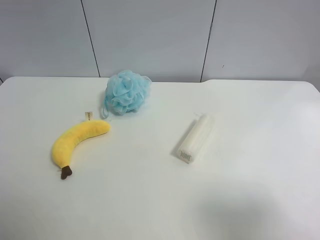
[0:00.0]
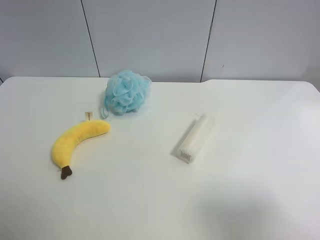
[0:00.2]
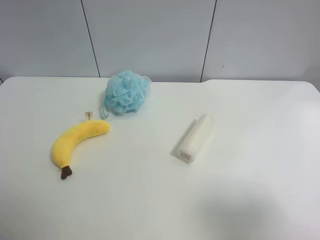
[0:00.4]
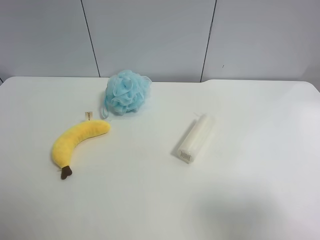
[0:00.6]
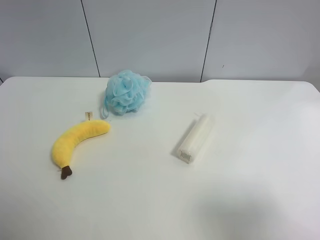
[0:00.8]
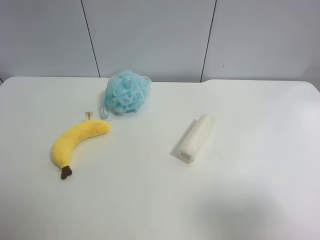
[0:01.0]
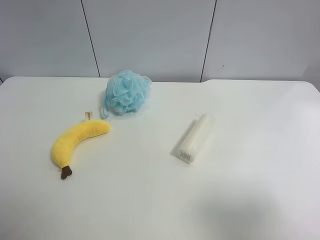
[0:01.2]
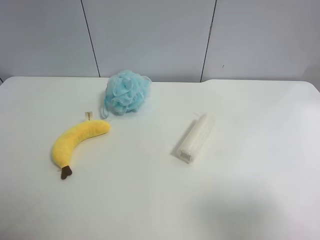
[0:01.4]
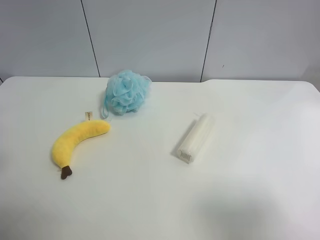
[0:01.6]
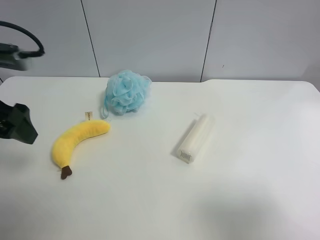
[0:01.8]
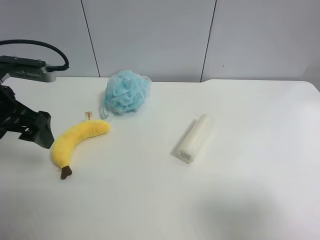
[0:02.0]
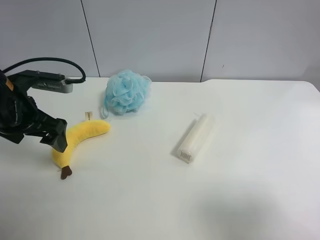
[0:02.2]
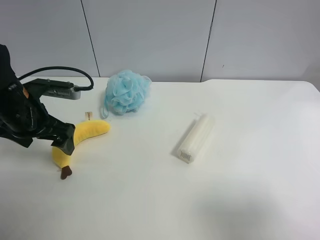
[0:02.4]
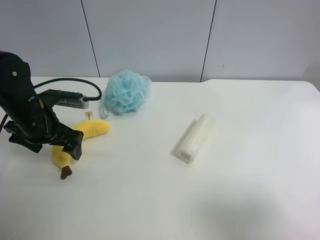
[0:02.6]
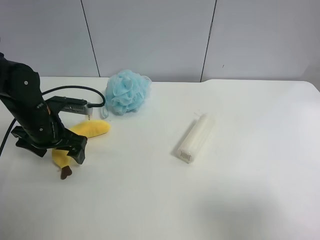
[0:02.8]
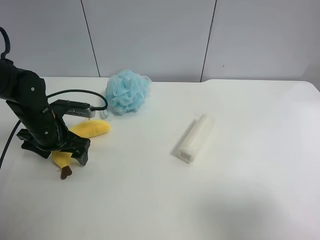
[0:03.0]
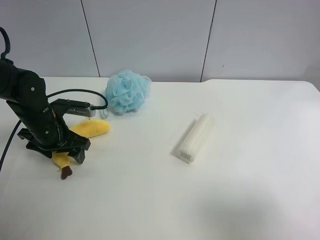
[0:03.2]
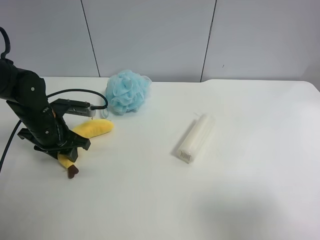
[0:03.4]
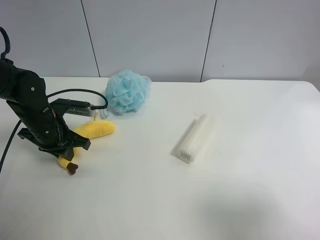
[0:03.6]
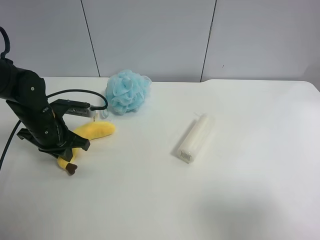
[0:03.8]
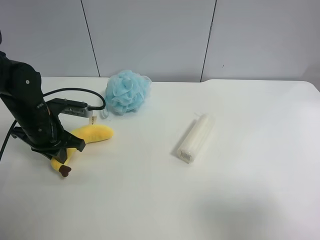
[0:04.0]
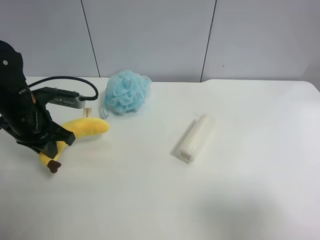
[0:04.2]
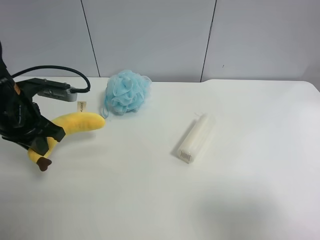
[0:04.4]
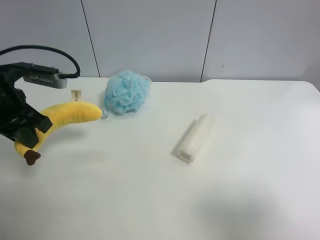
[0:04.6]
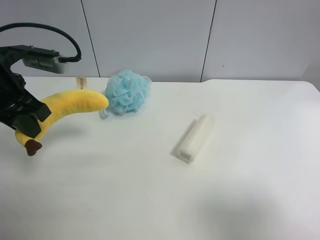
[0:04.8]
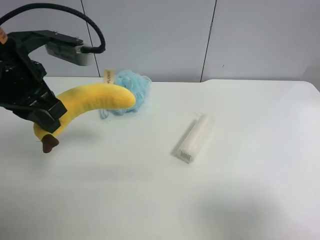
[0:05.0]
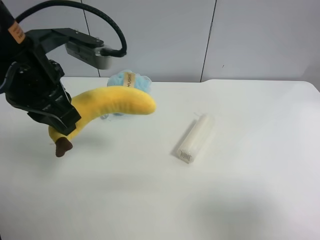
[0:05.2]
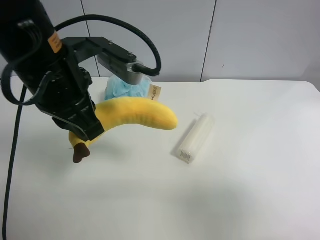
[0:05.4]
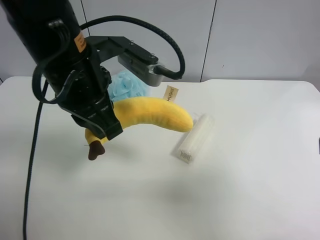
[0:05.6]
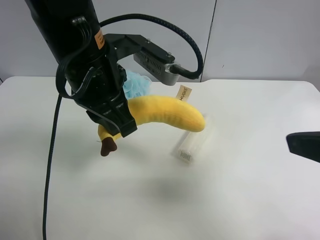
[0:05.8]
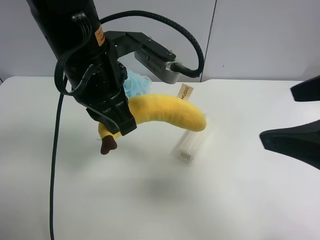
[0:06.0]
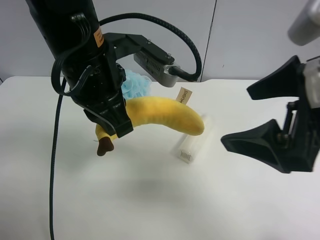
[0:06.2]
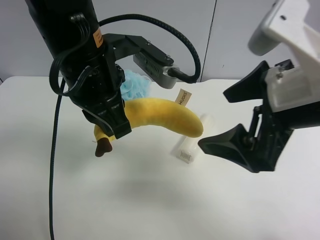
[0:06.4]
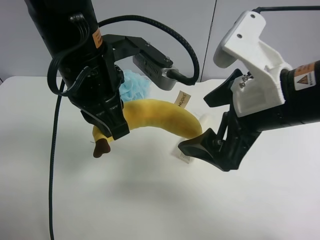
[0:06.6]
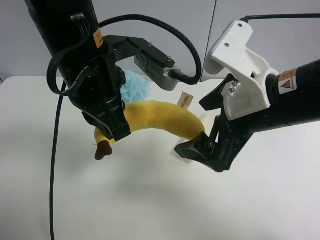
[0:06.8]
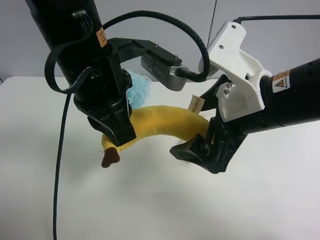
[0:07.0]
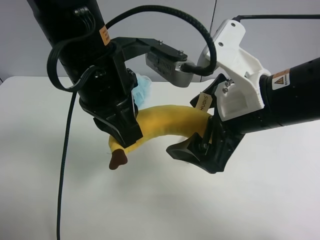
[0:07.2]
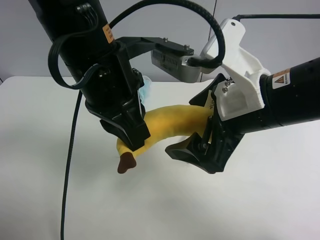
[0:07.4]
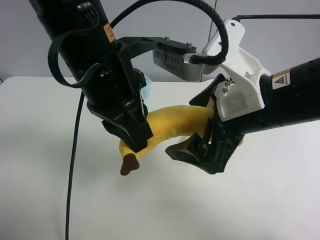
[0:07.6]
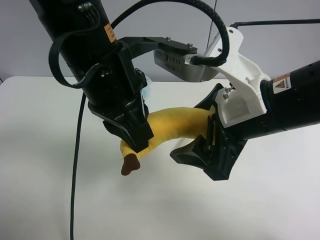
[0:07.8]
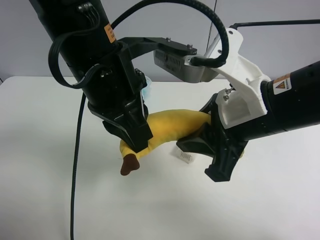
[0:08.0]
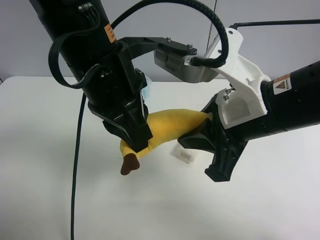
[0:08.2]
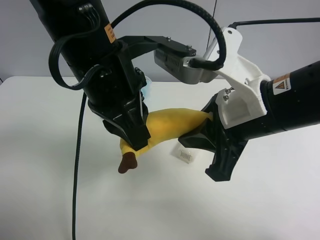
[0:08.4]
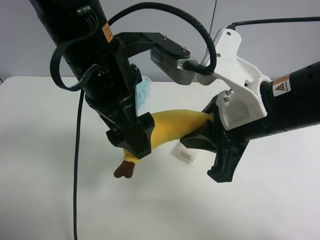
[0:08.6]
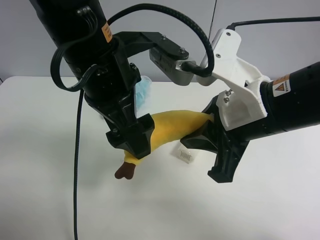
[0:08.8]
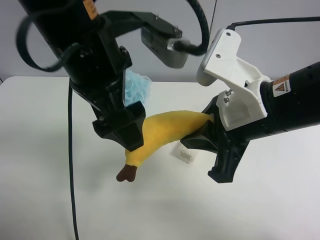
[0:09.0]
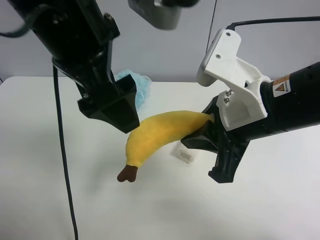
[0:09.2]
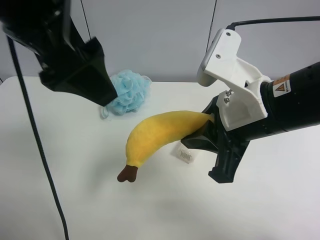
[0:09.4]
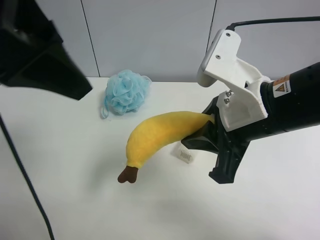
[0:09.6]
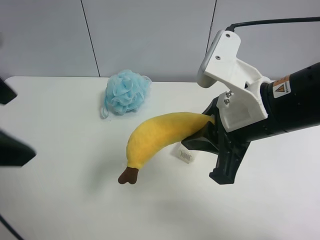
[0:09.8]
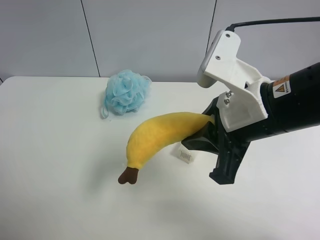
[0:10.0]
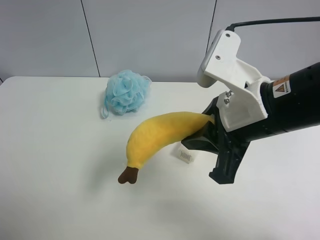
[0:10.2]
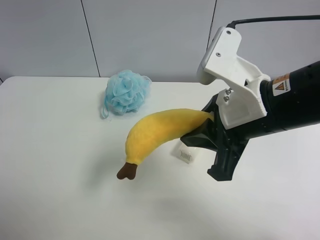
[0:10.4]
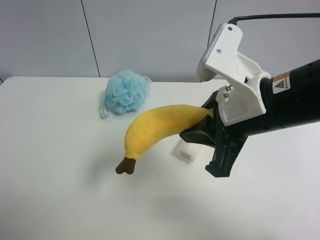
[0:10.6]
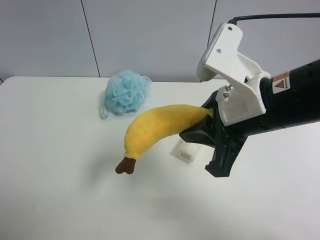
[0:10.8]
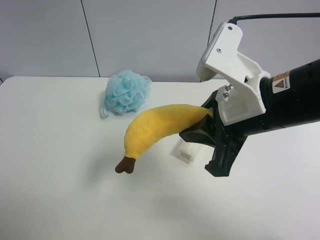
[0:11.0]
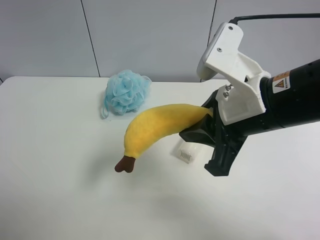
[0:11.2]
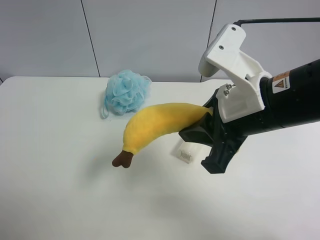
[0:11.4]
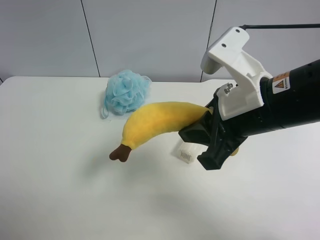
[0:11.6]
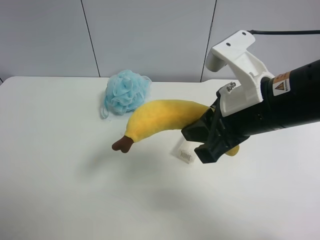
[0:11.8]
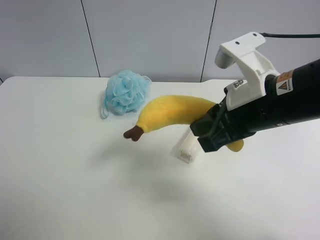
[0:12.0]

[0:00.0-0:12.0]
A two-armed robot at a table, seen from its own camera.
Task of the whole recording: use the left gripper to pick up the item and transfer it from the left gripper to the right gripper.
0:01.6 to 0:03.0: The left gripper moves downward and forward, about 25 cm.
0:03.0 to 0:04.4: The left gripper heads upward, covering some 10 cm, and closes.
0:04.4 to 0:06.0: The left gripper travels to the right and upward by approximately 20 cm; the right gripper shifts approximately 15 cm forward and to the left.
0:06.0 to 0:07.6: The right gripper moves to the left, forward and downward, approximately 10 cm.
0:07.6 to 0:09.0: The right gripper closes its fingers, while the left gripper opens up.
0:09.0 to 0:10.4: The left gripper shifts approximately 30 cm to the left and backward.

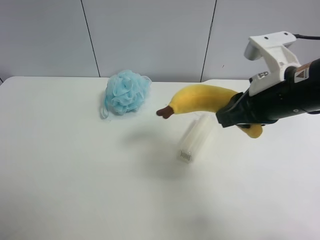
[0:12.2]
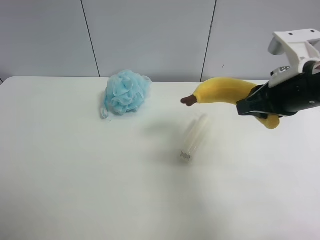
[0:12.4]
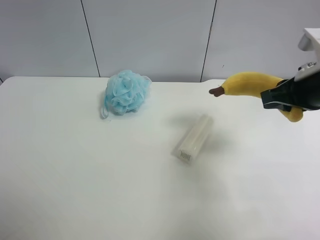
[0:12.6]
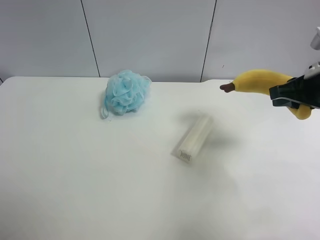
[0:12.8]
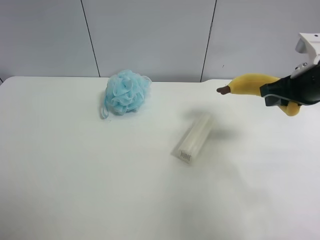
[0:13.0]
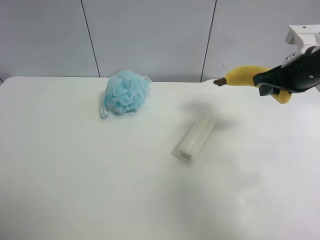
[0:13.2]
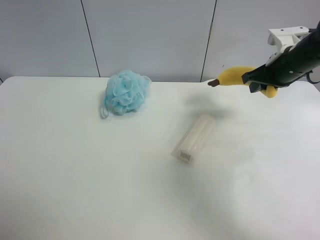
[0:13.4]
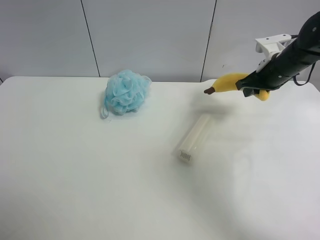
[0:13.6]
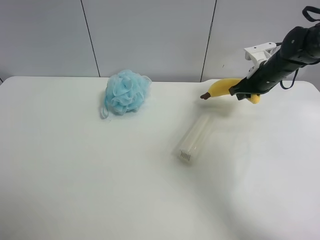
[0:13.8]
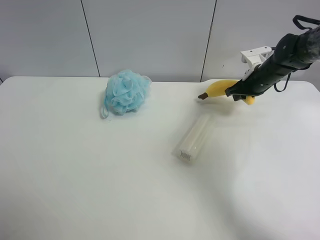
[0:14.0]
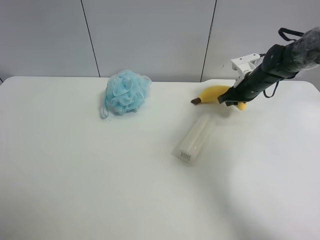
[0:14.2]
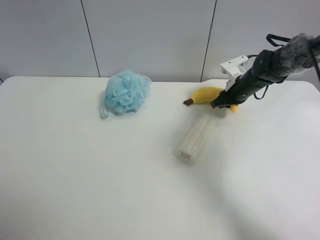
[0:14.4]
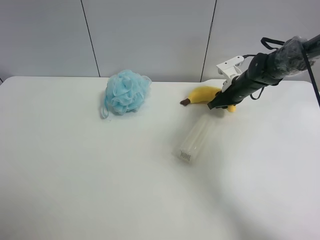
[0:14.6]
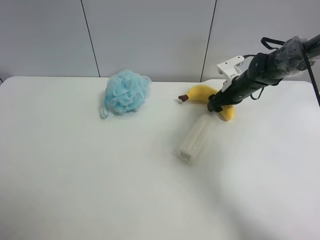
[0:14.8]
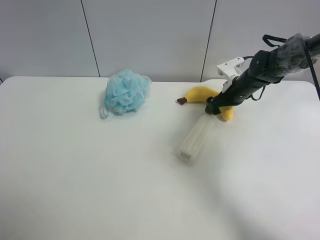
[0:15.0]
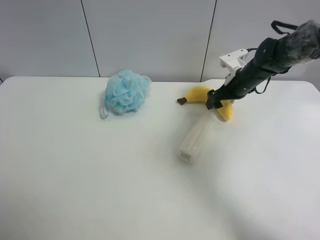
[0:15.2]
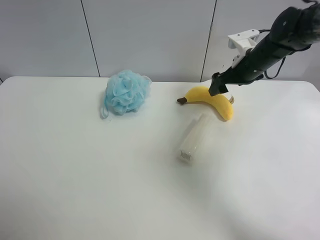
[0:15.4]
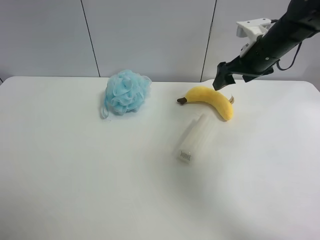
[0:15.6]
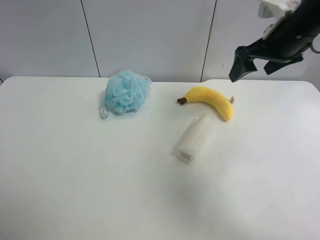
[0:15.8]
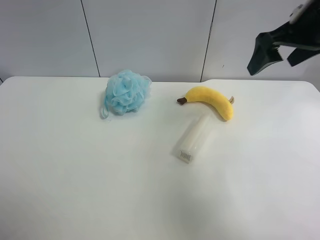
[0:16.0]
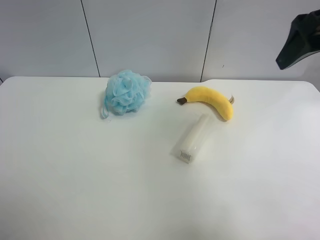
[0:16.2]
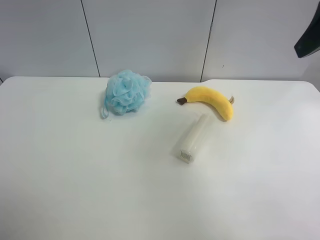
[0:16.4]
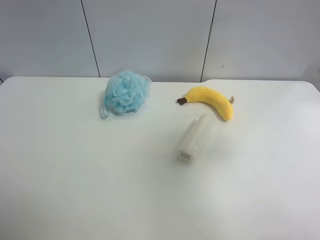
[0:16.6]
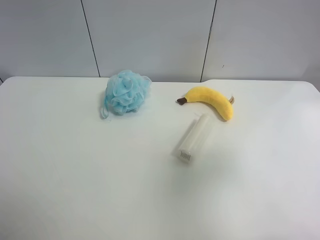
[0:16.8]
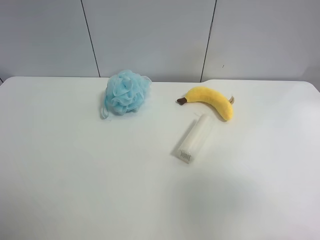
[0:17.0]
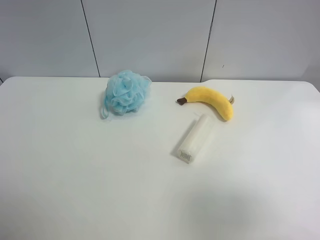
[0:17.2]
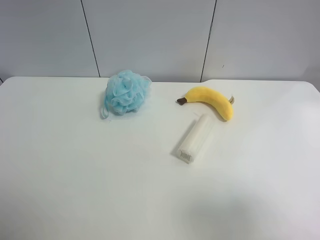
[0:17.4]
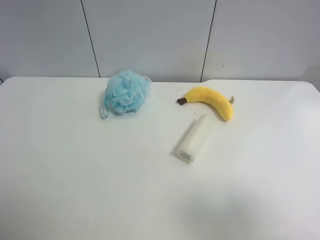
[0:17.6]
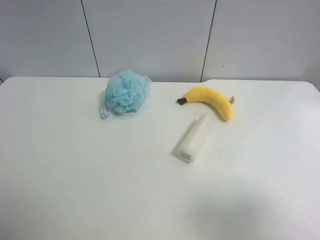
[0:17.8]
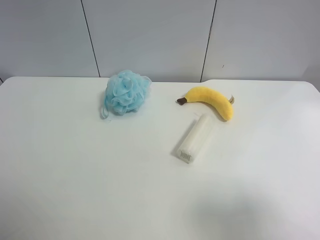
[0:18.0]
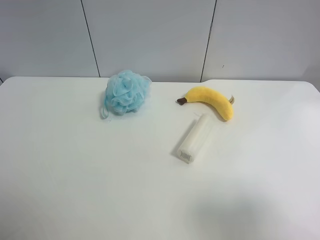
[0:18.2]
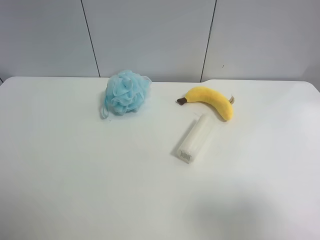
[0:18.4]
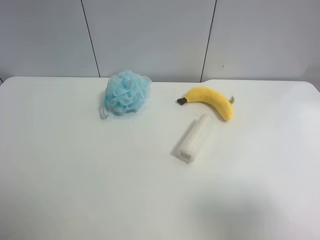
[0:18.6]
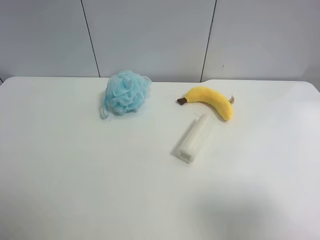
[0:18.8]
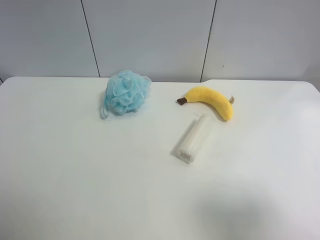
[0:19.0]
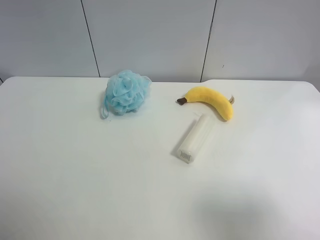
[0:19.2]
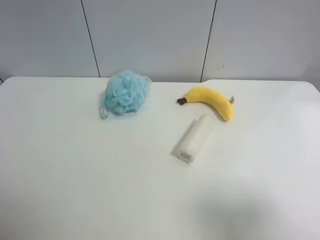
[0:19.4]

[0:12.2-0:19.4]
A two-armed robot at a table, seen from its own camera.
Task of the whole recording: use the left gripper to pick up the item and transfer it from the left gripper to the right gripper.
0:12.2 to 0:13.6: The right gripper travels forward and to the right by roughly 20 cm.
0:13.6 to 0:15.0: The right gripper travels downward by approximately 10 cm, and opens up.
0:15.0 to 0:16.6: The right gripper moves backward and upward, approximately 40 cm.
0:16.6 to 0:18.0: The right gripper moves backward and downward, some 15 cm.
